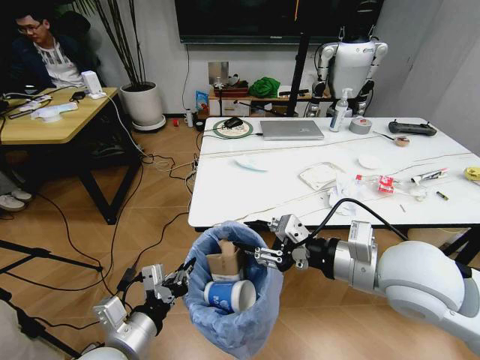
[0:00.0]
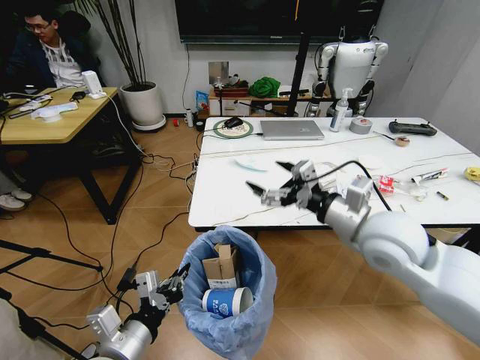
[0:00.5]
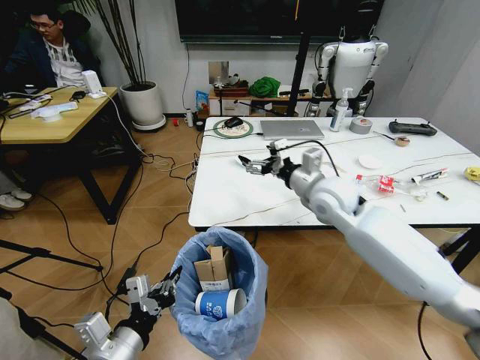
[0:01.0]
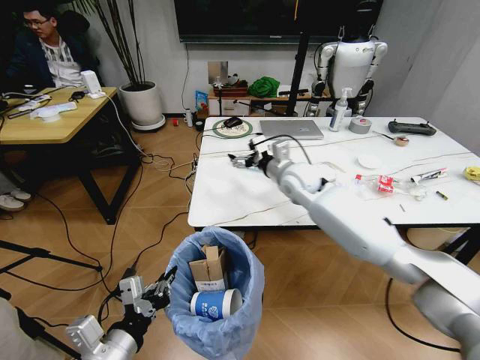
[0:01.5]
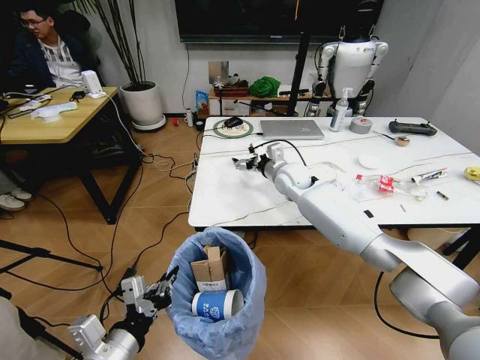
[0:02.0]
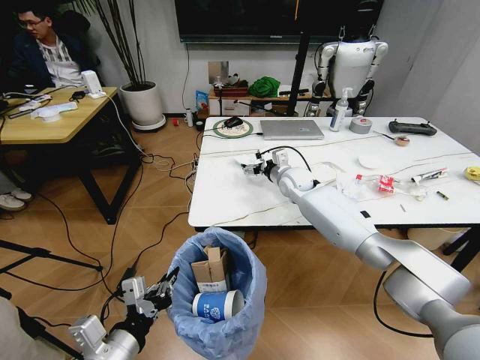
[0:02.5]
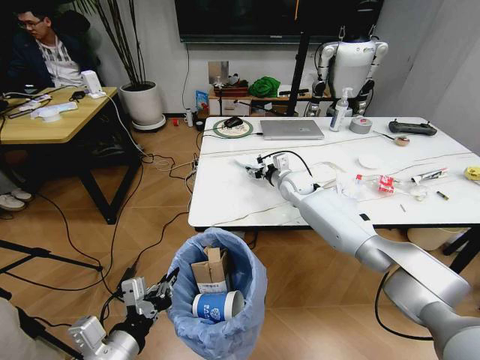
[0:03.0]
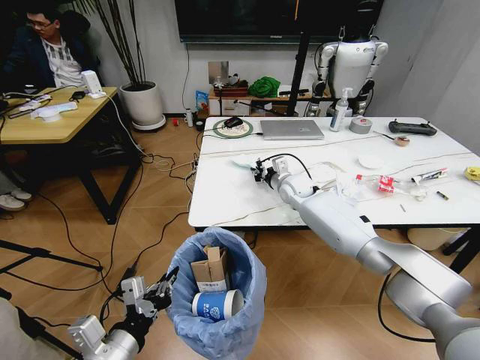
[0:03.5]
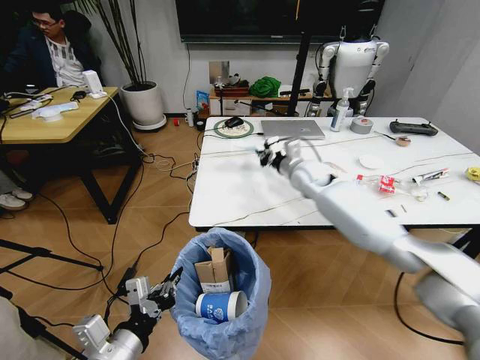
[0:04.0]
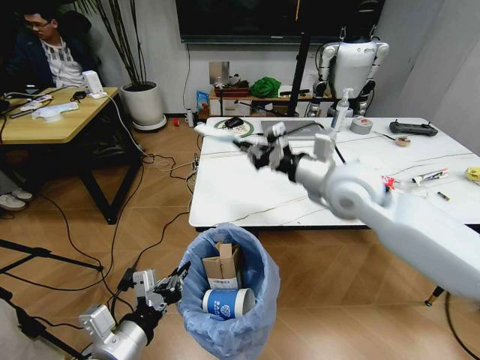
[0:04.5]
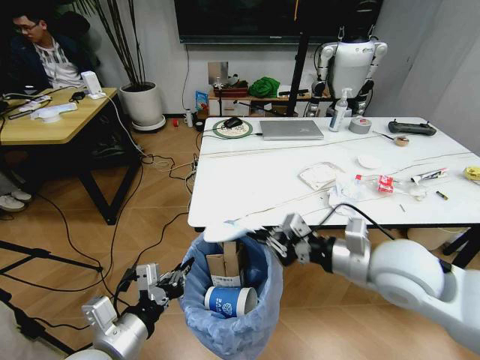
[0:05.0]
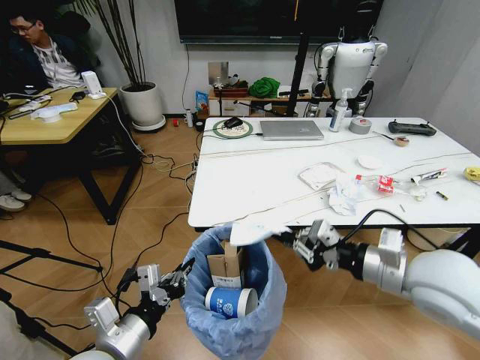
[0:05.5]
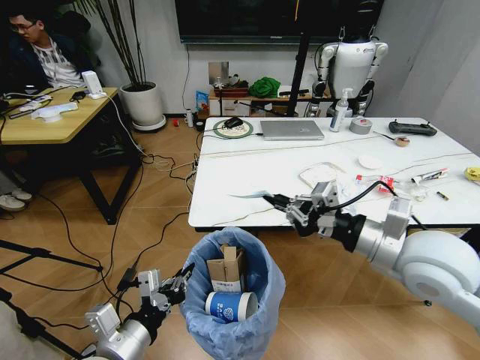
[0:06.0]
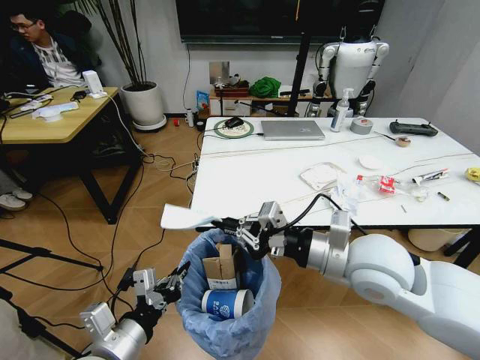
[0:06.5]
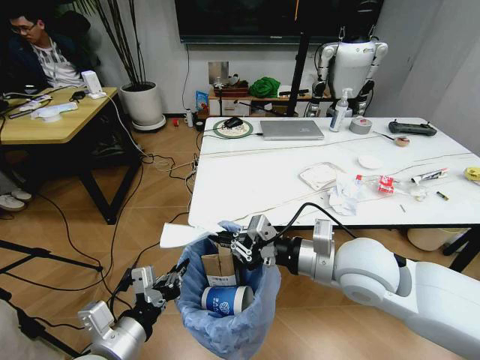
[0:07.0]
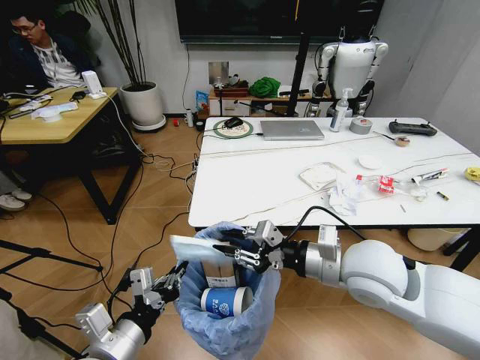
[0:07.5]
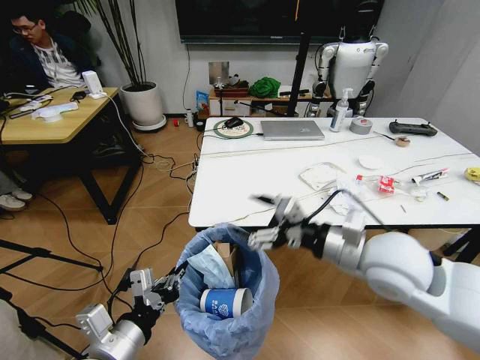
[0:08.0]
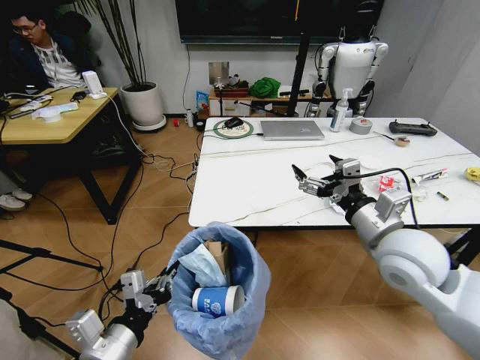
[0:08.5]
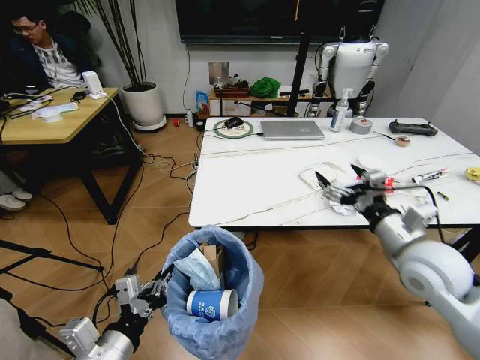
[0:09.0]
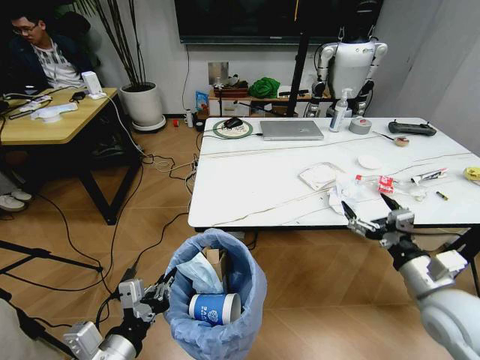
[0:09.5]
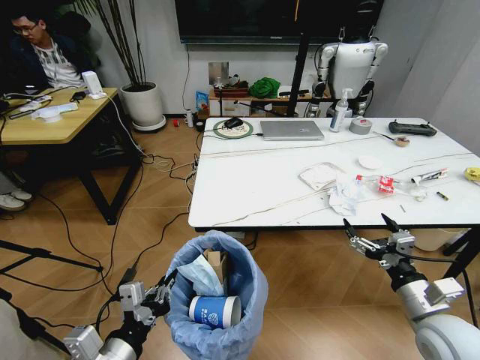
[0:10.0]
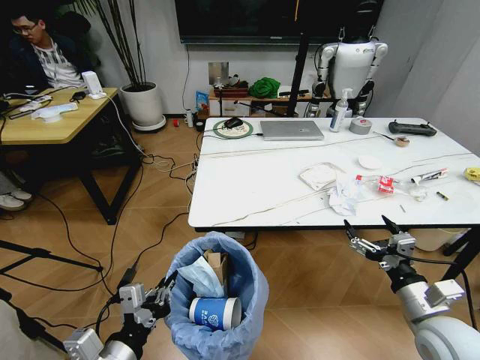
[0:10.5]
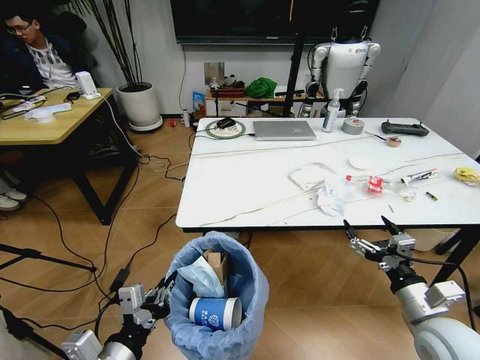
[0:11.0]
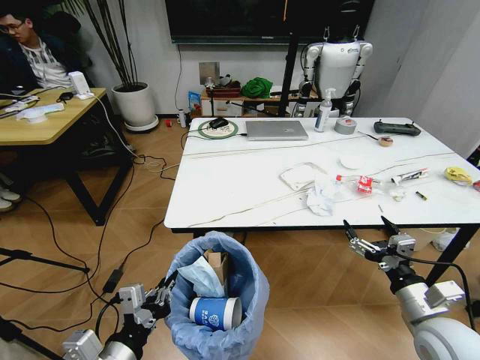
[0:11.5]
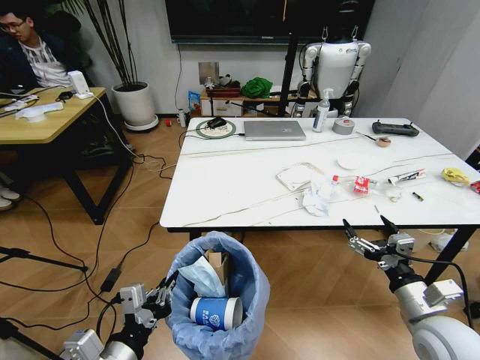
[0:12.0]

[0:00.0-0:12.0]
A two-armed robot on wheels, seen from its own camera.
Task of the whole recording: Pick up the trash bin and place the trash from the table into it.
0:00.0 to 0:02.0: The right gripper moves forward, approximately 35 cm, and opens its fingers.
0:02.0 to 0:04.0: The right gripper closes.
0:04.0 to 0:06.0: The right gripper moves backward, roughly 30 cm.
0:06.0 to 0:08.0: The right gripper opens.
0:08.0 to 0:10.0: The right gripper is displaced downward, to the right and backward by some 20 cm.

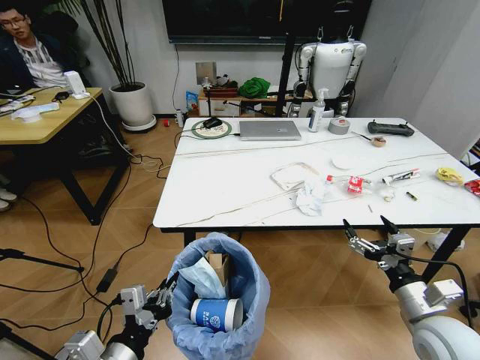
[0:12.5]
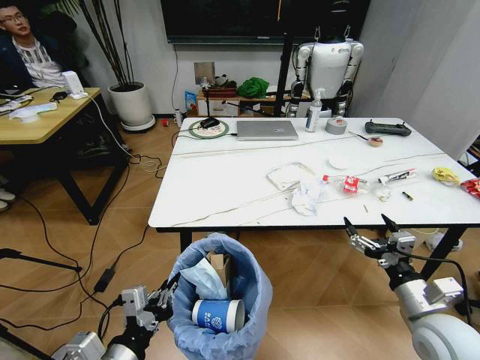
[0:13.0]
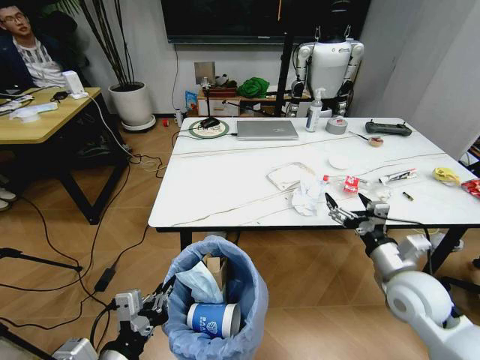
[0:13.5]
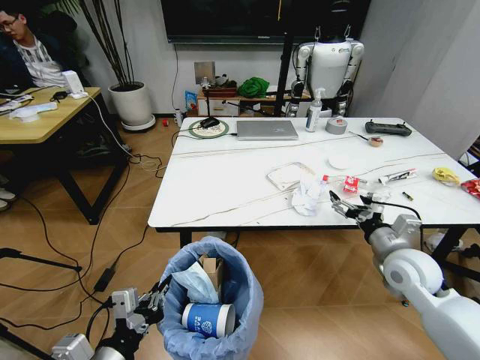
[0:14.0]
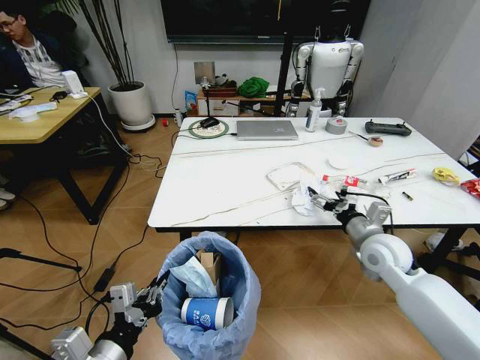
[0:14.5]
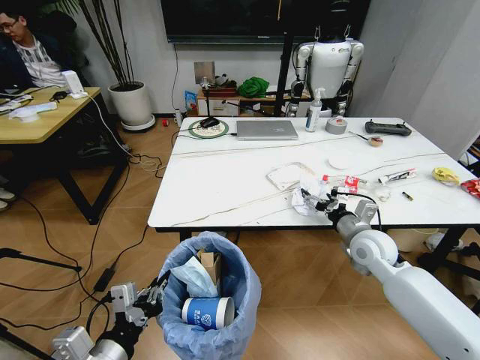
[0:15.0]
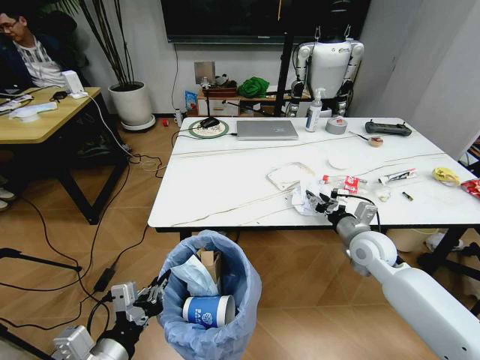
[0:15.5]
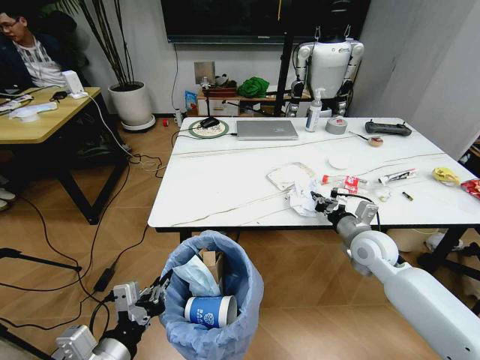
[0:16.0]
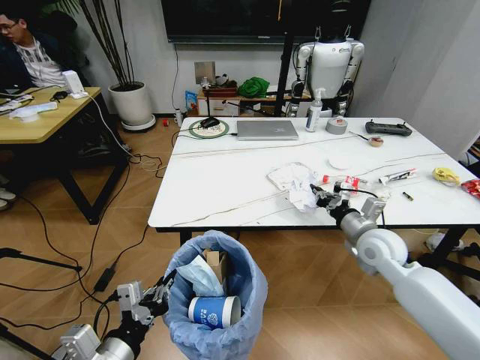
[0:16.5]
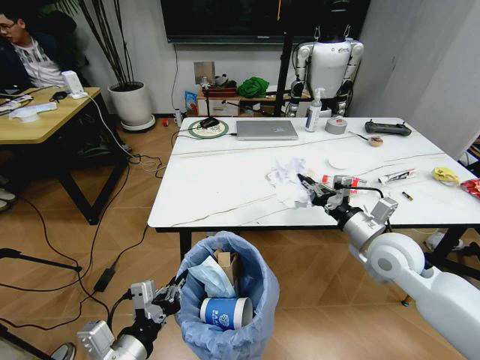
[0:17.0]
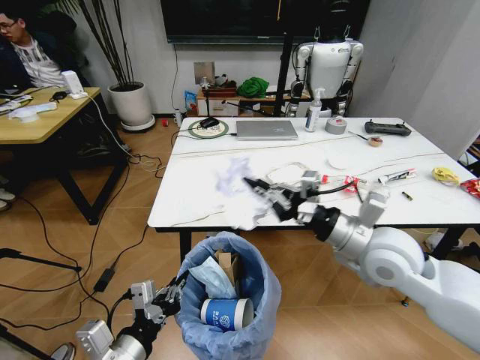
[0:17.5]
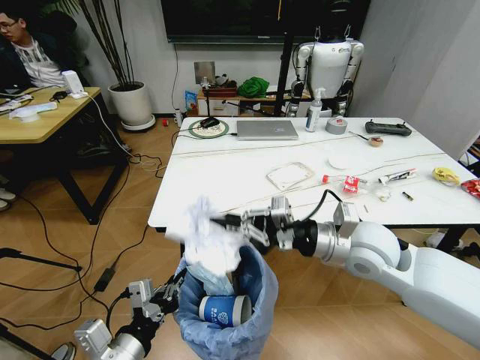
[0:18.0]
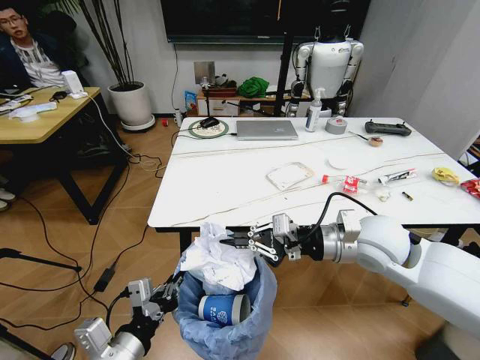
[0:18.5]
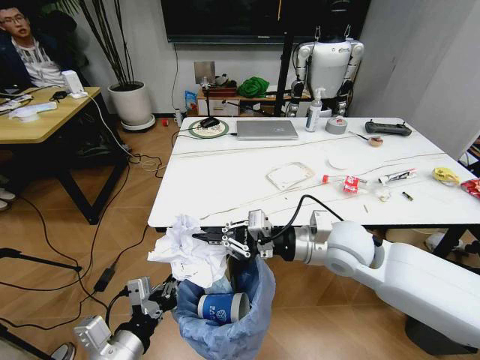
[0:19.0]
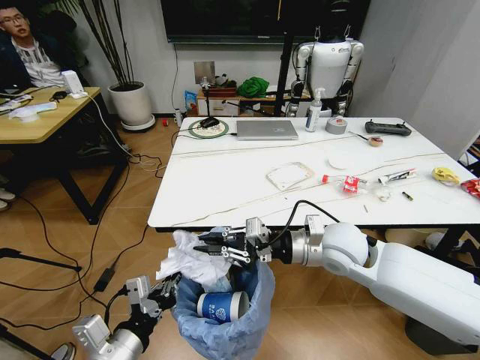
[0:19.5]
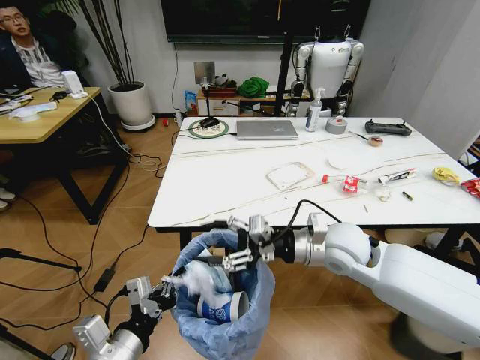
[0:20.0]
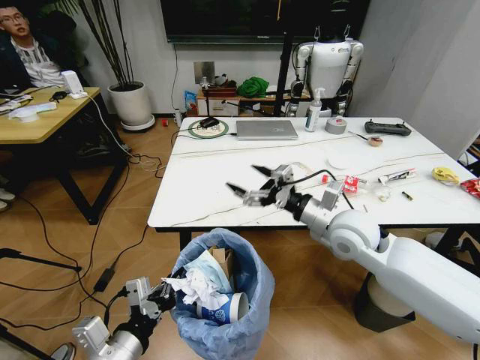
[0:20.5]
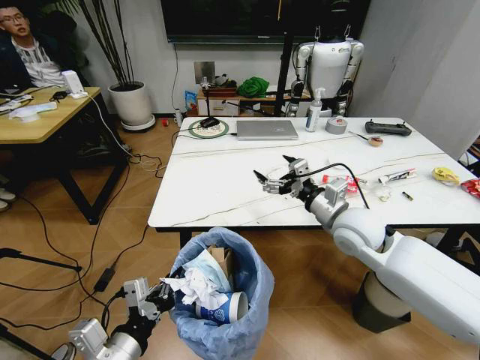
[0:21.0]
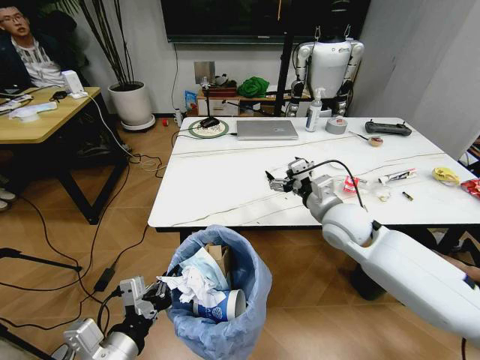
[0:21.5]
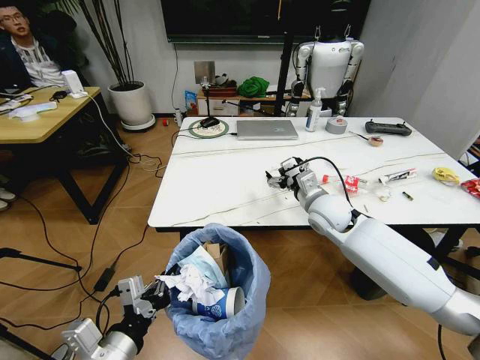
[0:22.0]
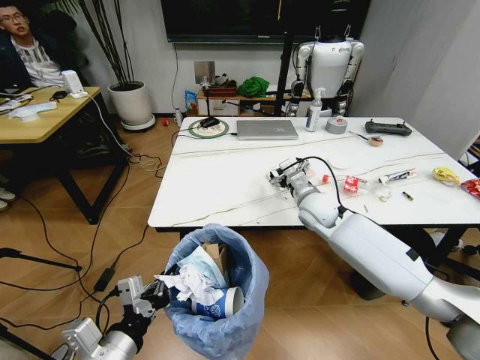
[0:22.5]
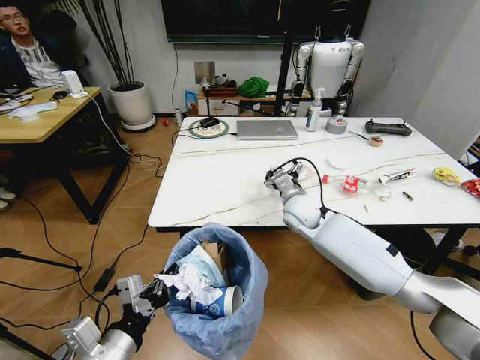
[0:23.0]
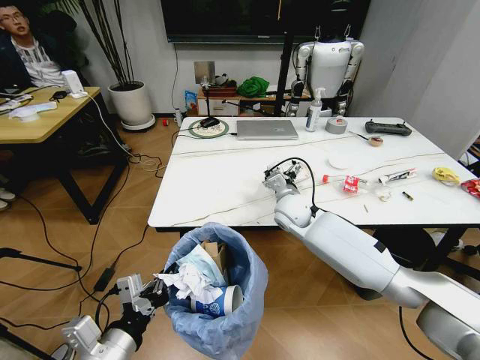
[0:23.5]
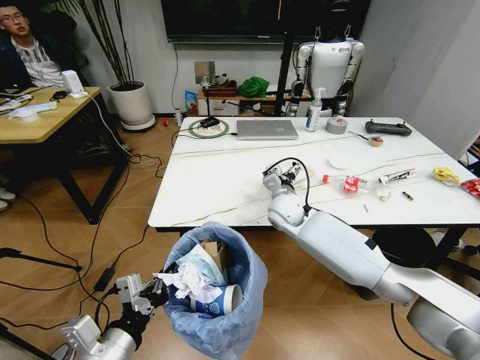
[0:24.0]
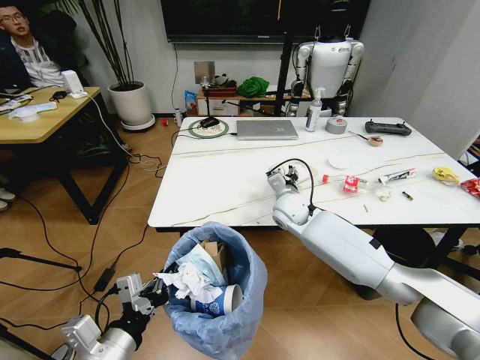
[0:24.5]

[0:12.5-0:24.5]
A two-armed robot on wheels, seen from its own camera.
Task of the whole recording: Pick up the trash bin and place the trash from the table into it.
0:12.5 to 0:14.5: The right gripper heads forward, covering about 15 cm.
0:14.5 to 0:16.5: The right gripper closes up.
0:16.5 to 0:18.5: The right gripper moves upward and to the left, about 10 cm.
0:18.5 to 0:20.5: The right gripper changes place by about 5 cm, and opens.
0:20.5 to 0:22.5: The right gripper heads forward and downward, covering roughly 10 cm.
0:22.5 to 0:24.5: The right gripper is displaced to the left by about 5 cm, and closes its fingers.

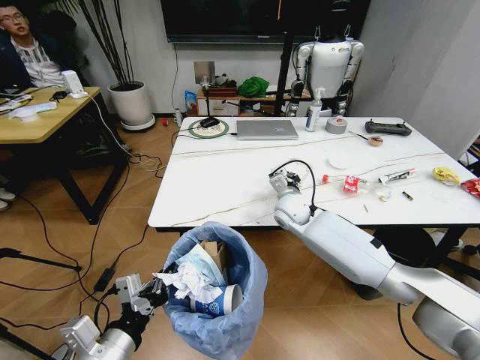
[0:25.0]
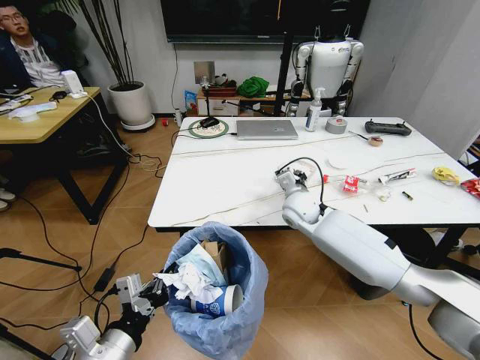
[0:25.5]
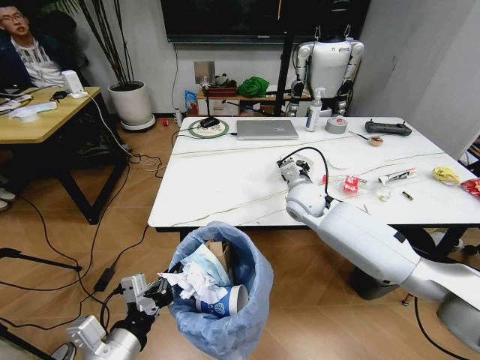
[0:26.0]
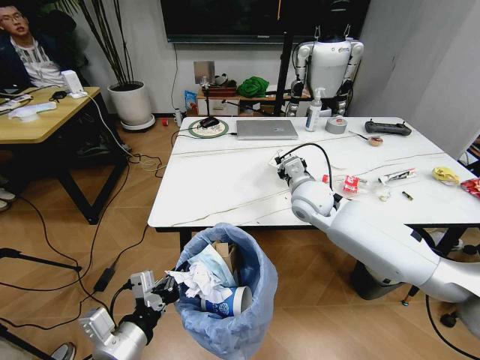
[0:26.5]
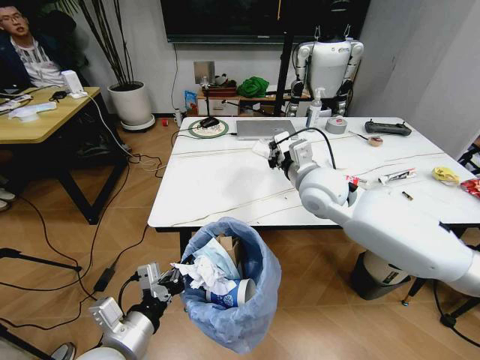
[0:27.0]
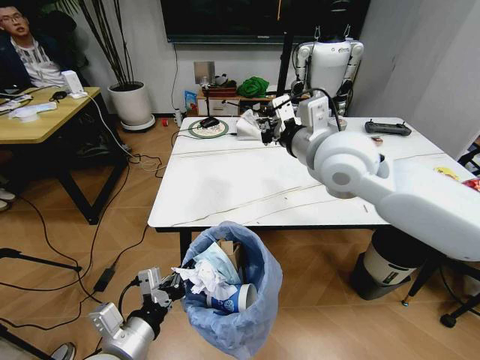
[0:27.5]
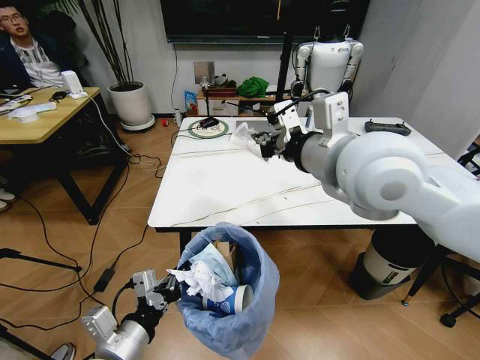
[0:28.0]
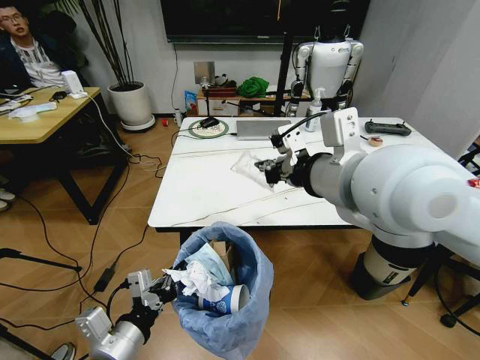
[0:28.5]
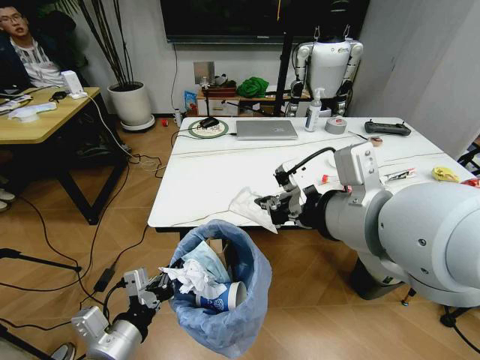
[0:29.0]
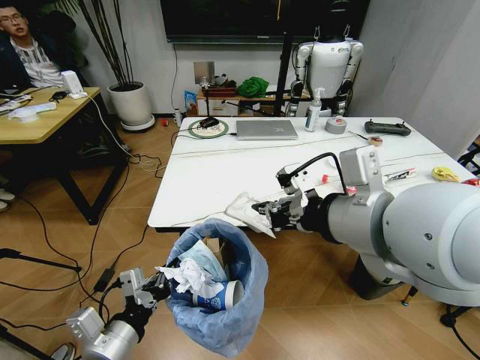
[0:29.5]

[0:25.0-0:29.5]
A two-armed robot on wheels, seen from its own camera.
Task of the whole recording: Pick up the trash bin and place the trash from the table into it.
0:25.0 to 0:27.0: The right gripper is displaced upward and backward by about 15 cm.
0:27.0 to 0:29.5: The right gripper heads backward and upward, covering roughly 25 cm.
